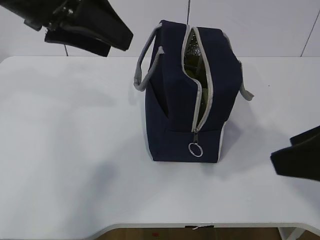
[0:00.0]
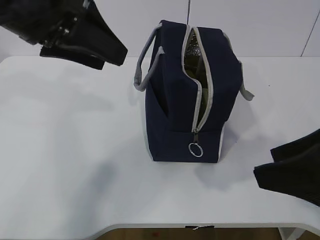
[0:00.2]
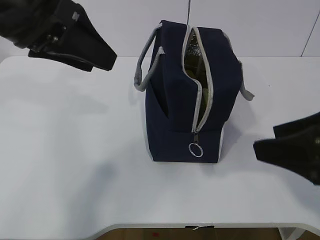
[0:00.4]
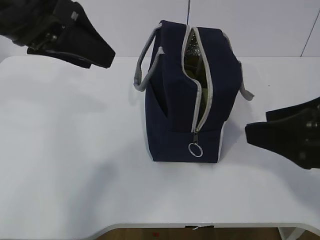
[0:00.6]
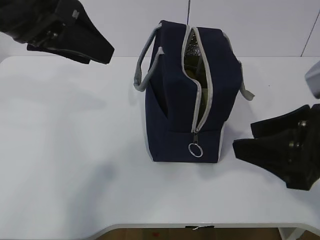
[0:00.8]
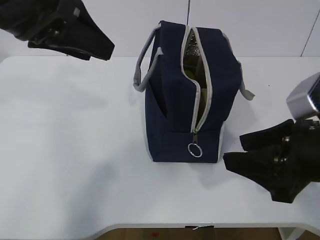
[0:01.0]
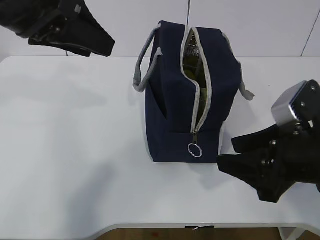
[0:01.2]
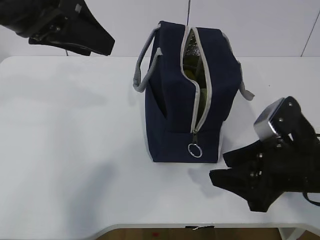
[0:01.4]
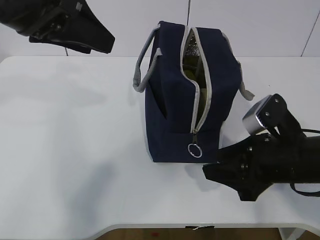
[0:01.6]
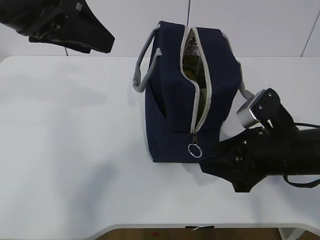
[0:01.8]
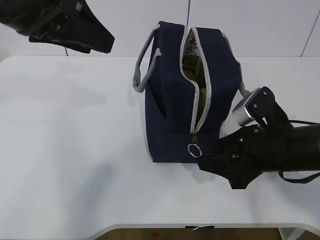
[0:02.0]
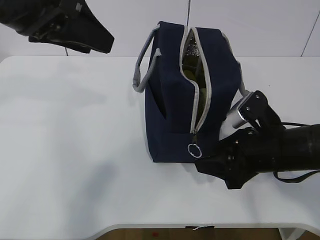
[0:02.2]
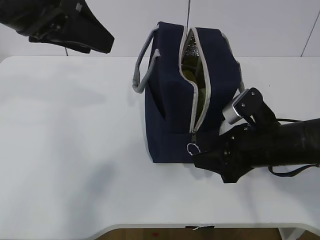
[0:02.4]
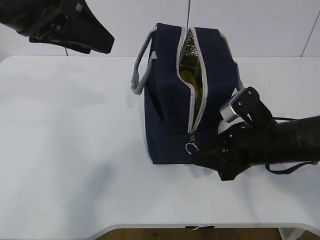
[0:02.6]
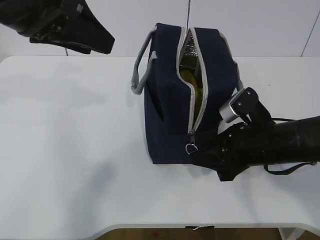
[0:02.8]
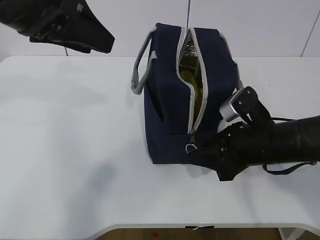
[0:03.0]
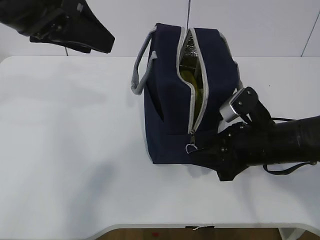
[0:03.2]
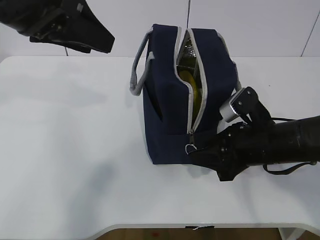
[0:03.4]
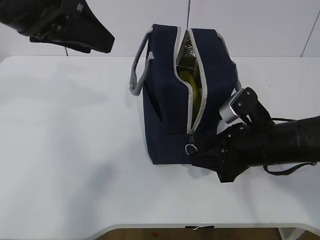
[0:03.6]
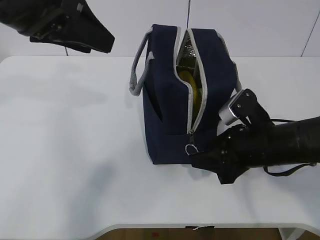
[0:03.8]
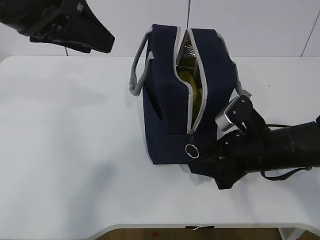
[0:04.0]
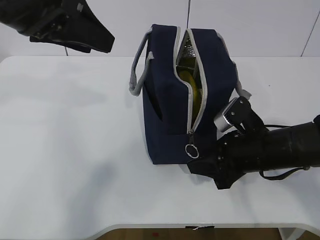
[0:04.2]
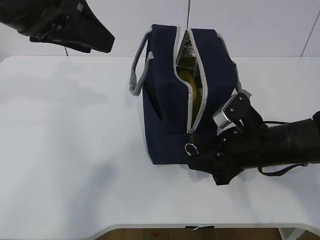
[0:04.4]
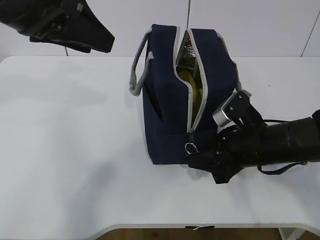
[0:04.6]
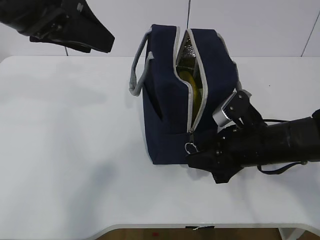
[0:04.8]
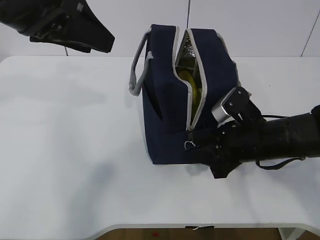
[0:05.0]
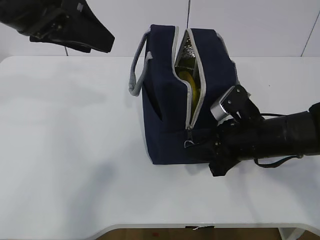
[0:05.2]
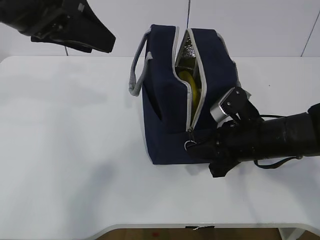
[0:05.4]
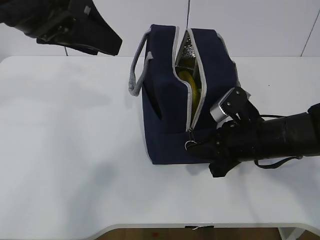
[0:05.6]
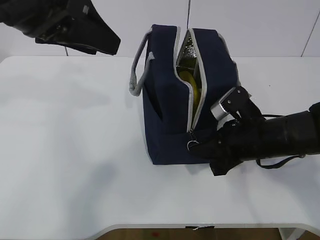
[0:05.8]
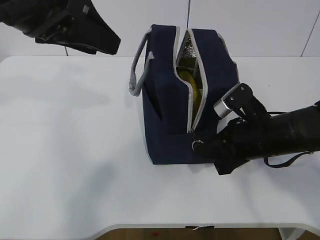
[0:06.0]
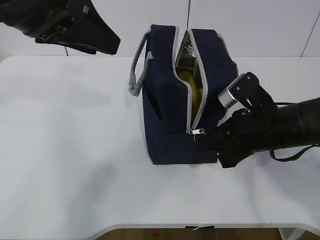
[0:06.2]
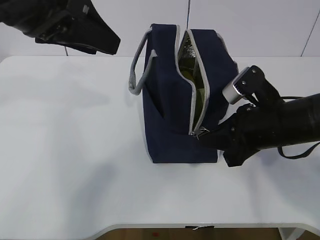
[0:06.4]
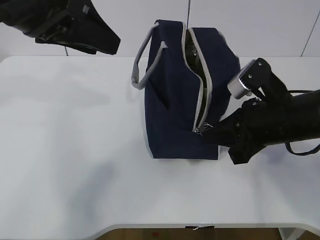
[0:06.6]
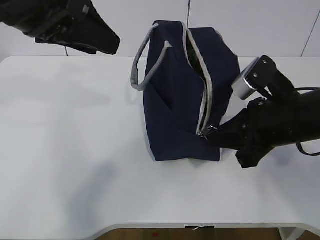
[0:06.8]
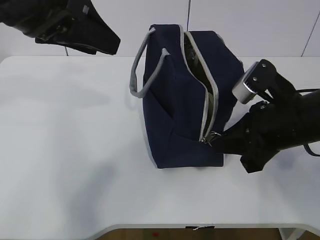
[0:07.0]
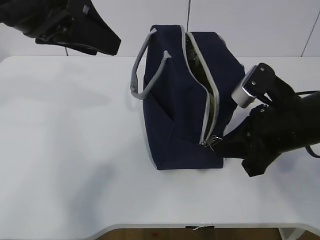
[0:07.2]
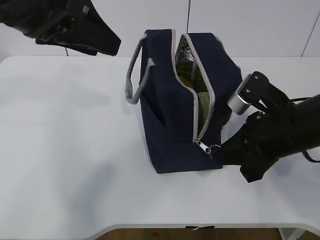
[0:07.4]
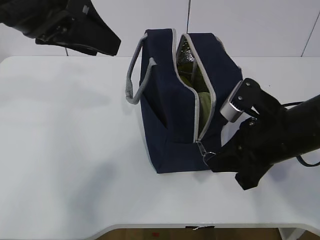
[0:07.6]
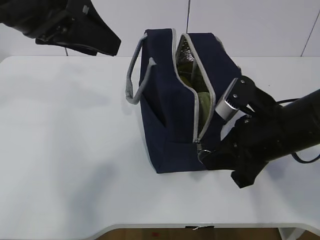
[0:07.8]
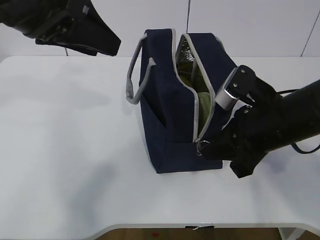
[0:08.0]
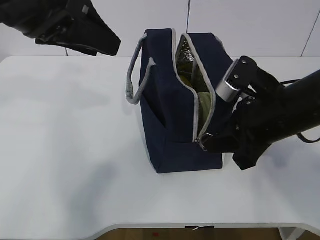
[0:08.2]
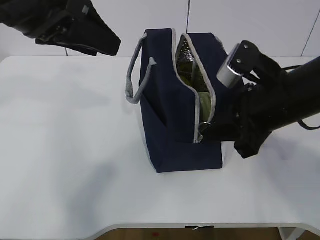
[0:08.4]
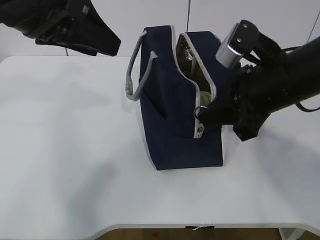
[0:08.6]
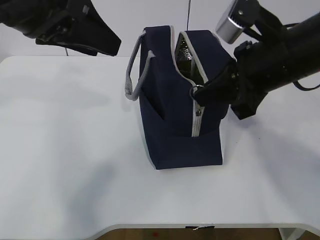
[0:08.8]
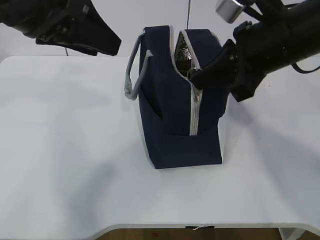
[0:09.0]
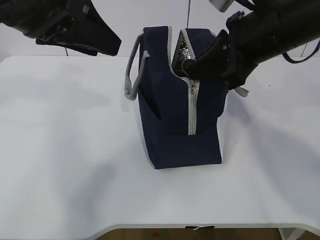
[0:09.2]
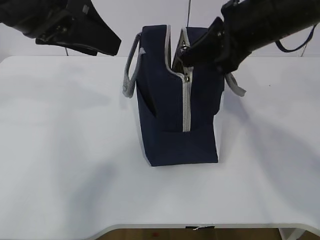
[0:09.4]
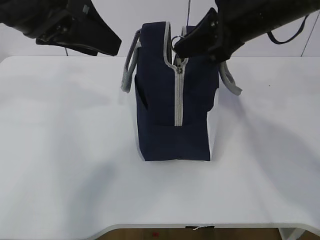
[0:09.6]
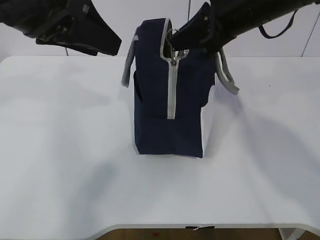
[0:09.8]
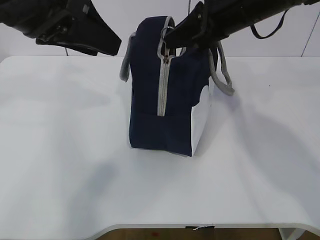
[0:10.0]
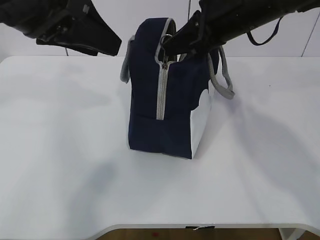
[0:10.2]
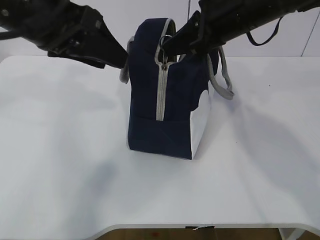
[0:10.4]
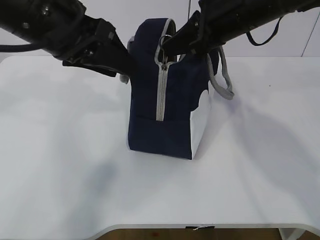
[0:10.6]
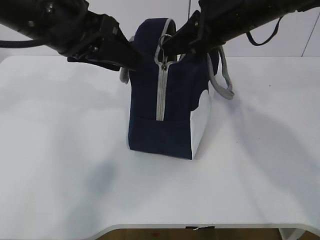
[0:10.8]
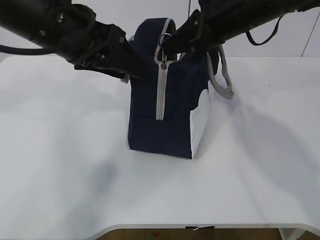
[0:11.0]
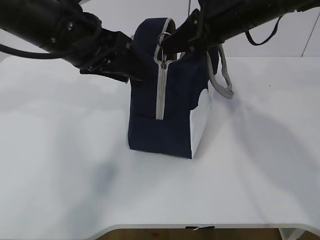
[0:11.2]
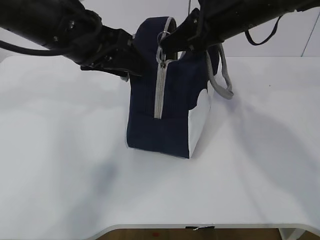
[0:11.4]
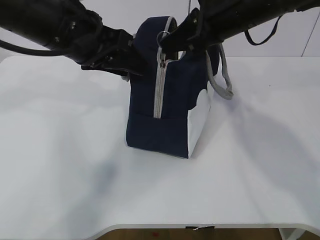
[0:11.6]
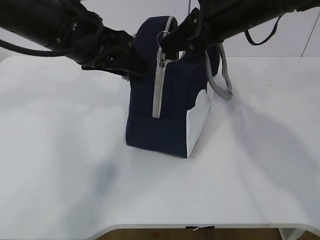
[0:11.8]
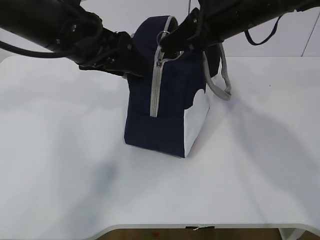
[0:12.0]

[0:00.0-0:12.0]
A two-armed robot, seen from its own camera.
Step, 0:07.0 to 0:11.2: Pull the zipper with your right hand.
0:00.0 to 0:01.6: The right gripper is displaced downward and forward by about 15 cm.
0:01.6 to 0:03.0: The right gripper moves some 5 cm.
0:03.0 to 0:04.4: There are only small adjustments of the grippers.
0:04.4 to 0:06.0: The right gripper closes up.
0:06.0 to 0:07.6: The right gripper shifts by approximately 5 cm.
0:07.6 to 0:09.0: The right gripper heads upward, covering some 10 cm.
0:09.0 to 0:10.4: The right gripper shifts approximately 5 cm forward.
0:10.4 to 0:12.0: The left gripper moves roughly 5 cm.

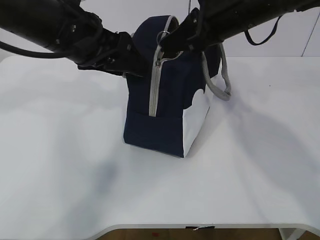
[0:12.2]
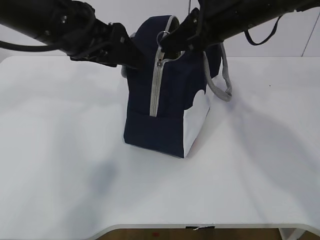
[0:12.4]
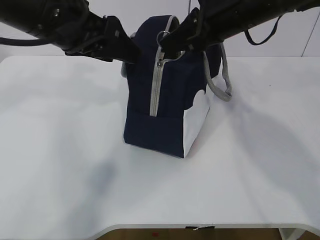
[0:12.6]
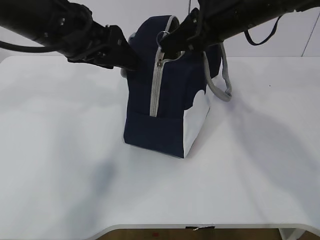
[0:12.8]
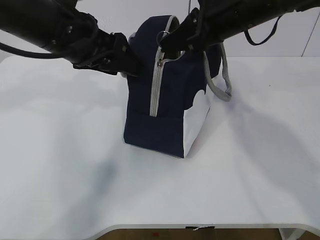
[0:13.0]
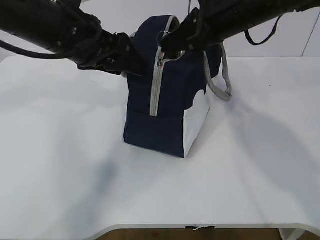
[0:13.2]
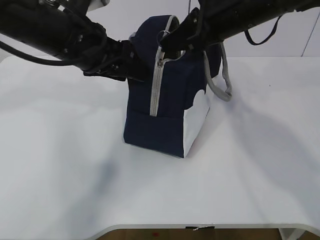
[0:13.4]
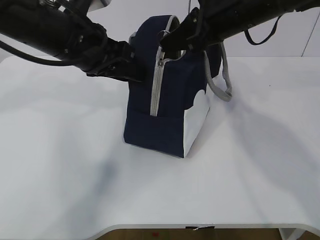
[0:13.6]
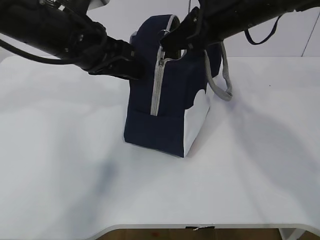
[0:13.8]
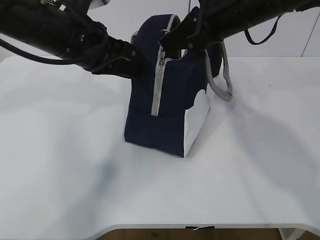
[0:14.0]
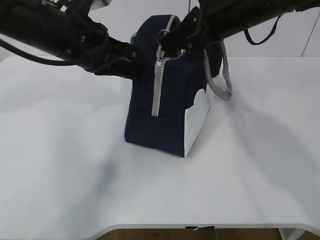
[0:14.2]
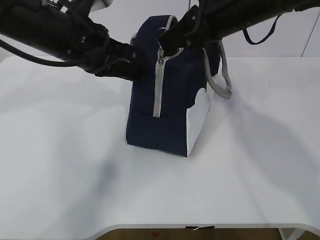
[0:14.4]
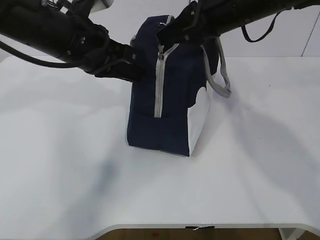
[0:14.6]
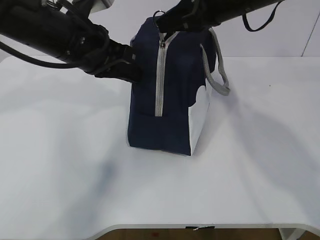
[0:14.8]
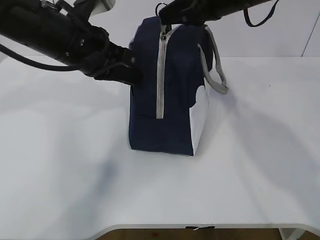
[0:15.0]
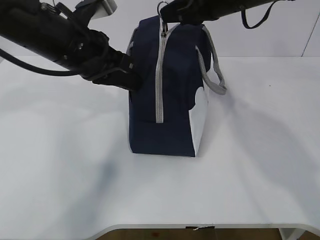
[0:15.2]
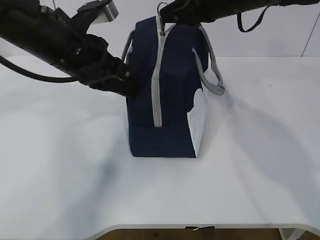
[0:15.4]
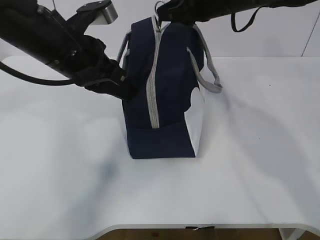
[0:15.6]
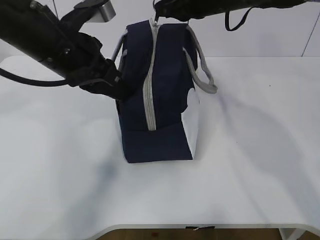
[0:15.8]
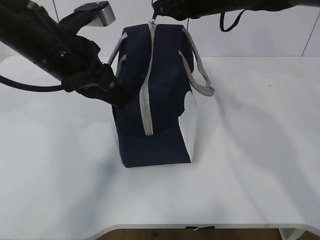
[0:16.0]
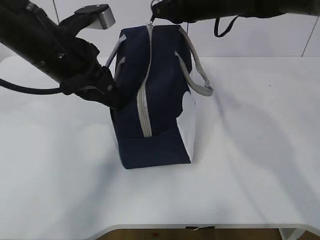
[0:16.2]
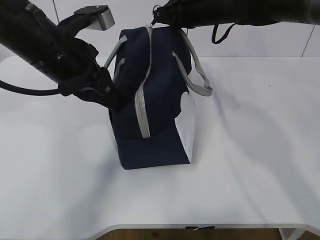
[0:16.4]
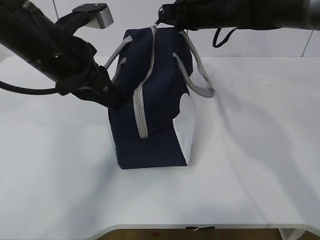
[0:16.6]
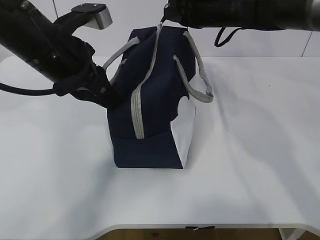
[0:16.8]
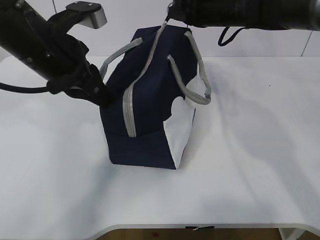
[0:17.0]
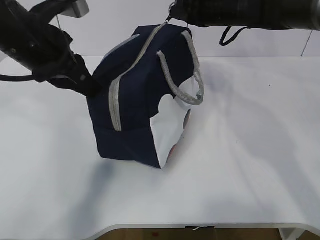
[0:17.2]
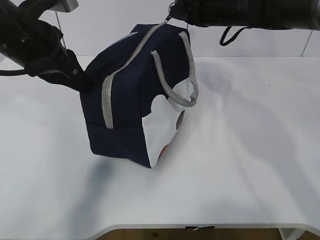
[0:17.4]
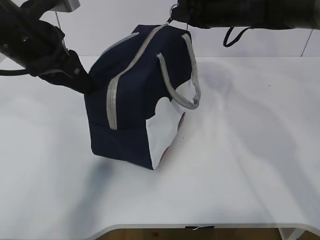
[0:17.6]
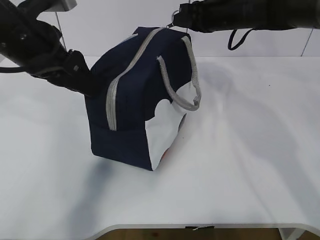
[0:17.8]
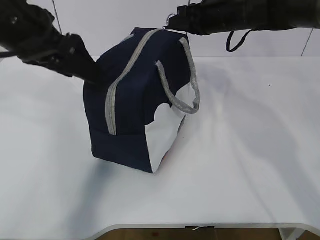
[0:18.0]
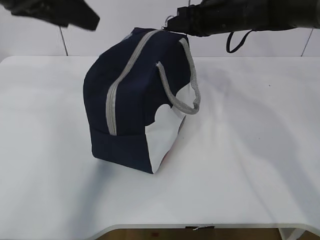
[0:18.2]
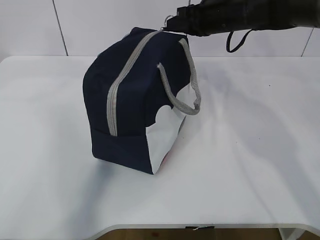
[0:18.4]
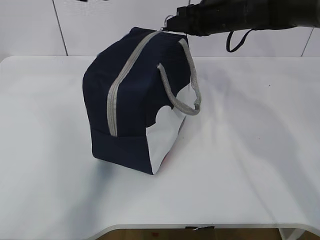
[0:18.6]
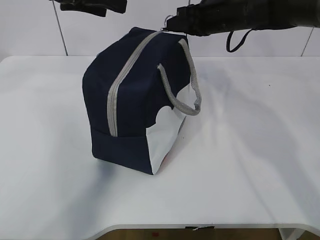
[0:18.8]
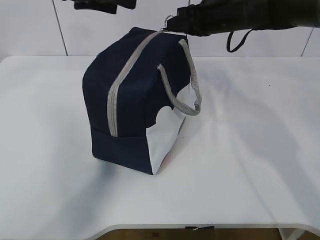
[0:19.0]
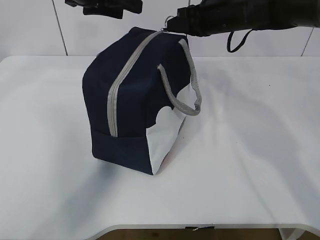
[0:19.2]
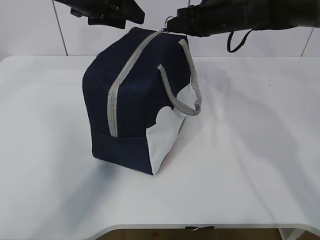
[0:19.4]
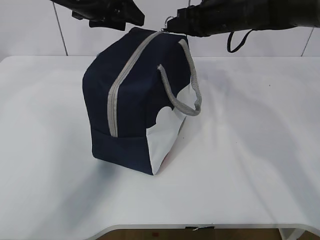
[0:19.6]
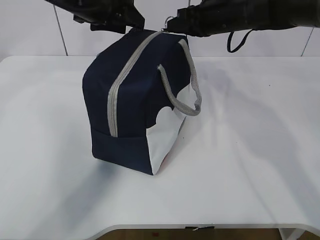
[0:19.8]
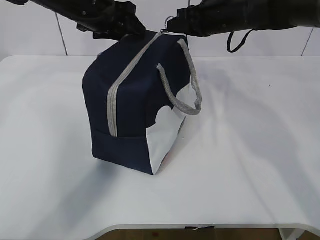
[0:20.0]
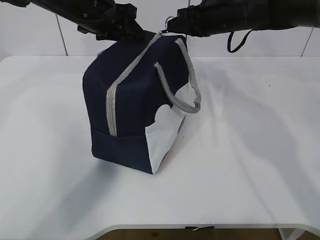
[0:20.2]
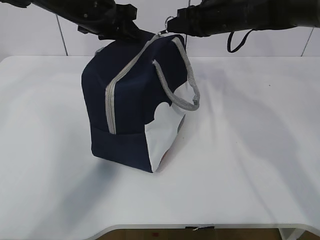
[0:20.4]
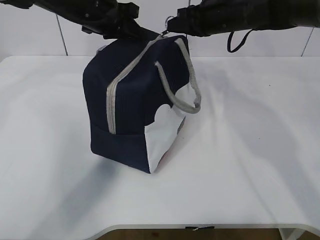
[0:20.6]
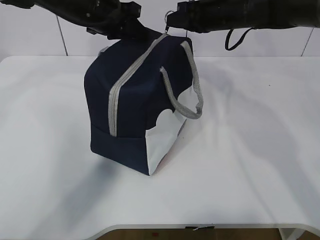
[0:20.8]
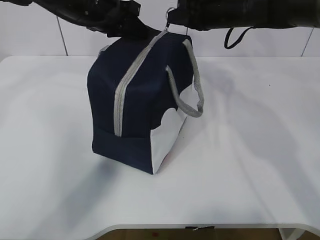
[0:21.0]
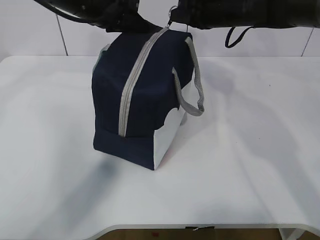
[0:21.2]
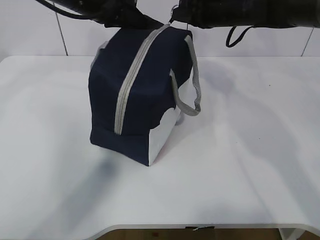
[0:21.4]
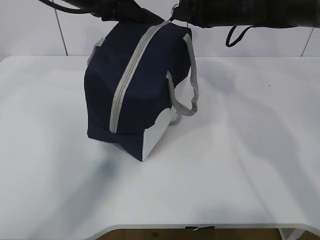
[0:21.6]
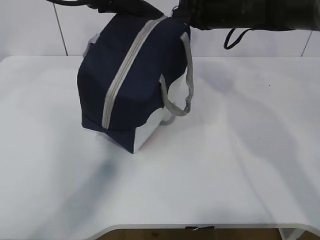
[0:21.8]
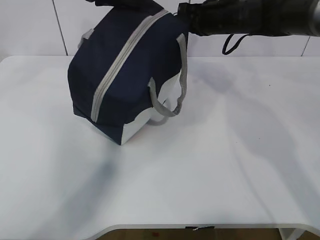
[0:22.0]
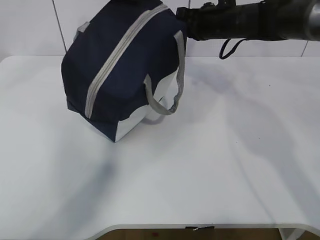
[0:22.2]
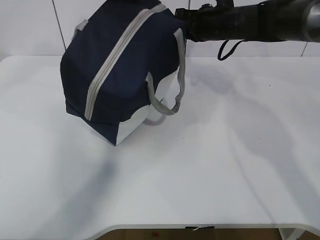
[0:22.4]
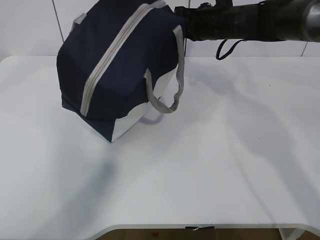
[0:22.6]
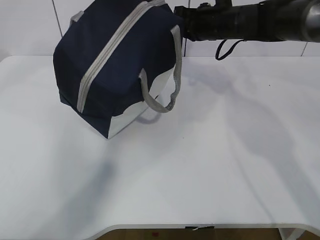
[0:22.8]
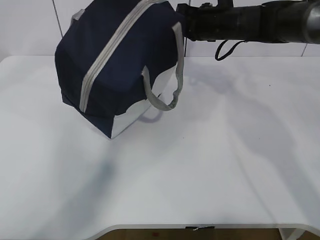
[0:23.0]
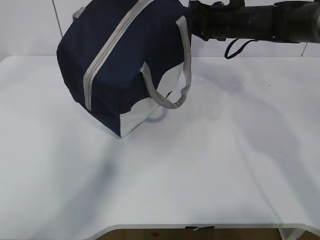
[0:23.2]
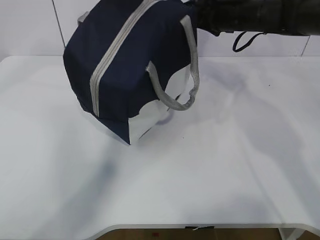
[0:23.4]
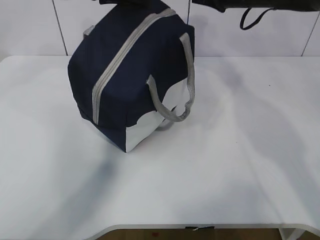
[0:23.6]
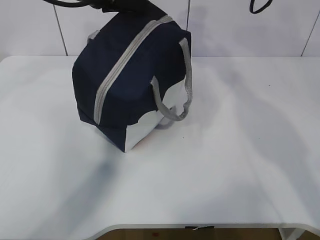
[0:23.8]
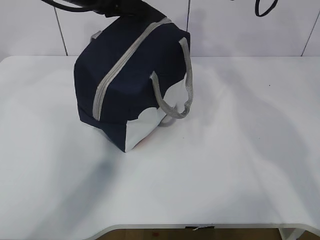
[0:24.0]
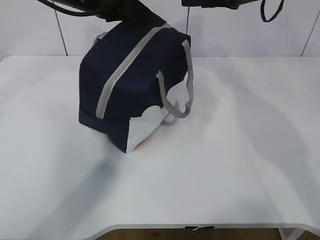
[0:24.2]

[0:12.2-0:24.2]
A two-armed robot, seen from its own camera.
0:12.2 to 0:13.8: The left gripper closes up.
0:13.8 to 0:15.2: The left gripper closes its fingers.
0:15.2 to 0:16.6: The right gripper moves forward and downward, approximately 10 cm.
0:16.6 to 0:18.2: The left gripper moves upward, approximately 10 cm, and opens up.
0:18.2 to 0:19.8: The left gripper shifts about 15 cm forward and downward.
0:19.8 to 0:21.2: The left gripper closes its fingers.
0:21.2 to 0:22.6: The left gripper is displaced upward by roughly 10 cm.
0:22.6 to 0:24.2: The right gripper is displaced upward by about 10 cm, and opens. The left gripper is displaced downward by roughly 5 cm.
